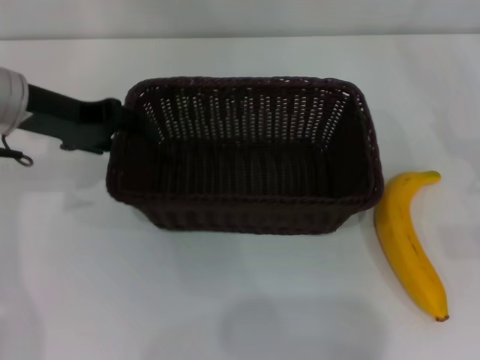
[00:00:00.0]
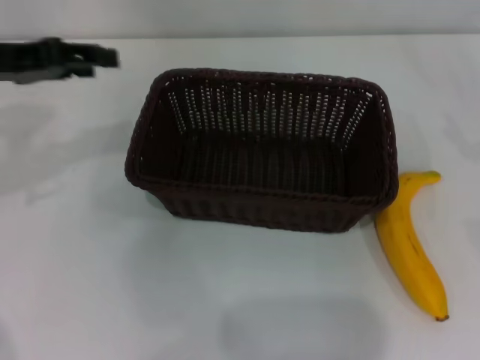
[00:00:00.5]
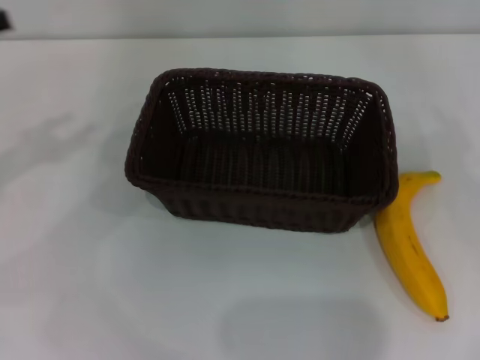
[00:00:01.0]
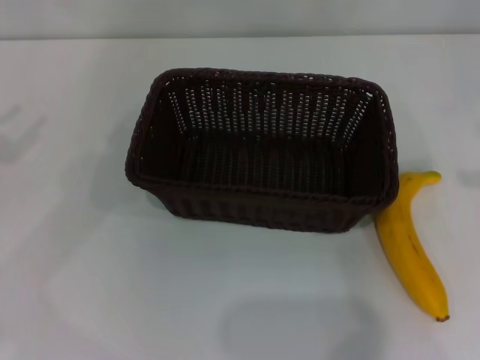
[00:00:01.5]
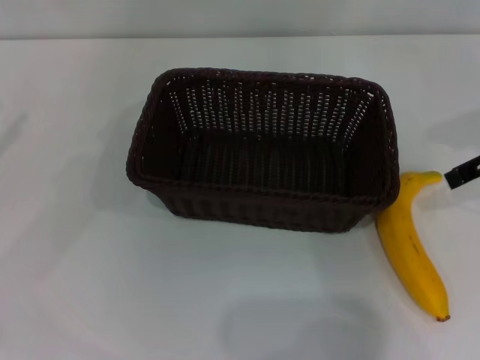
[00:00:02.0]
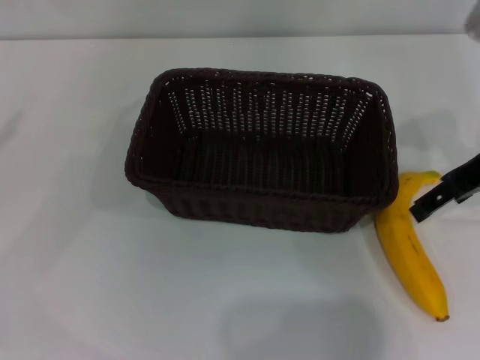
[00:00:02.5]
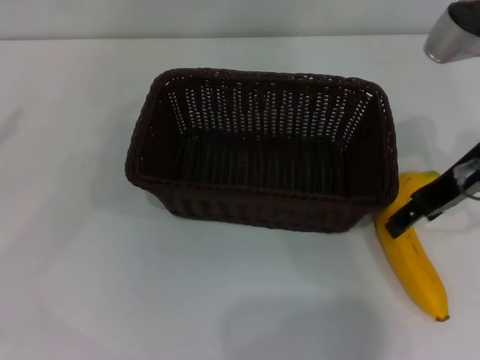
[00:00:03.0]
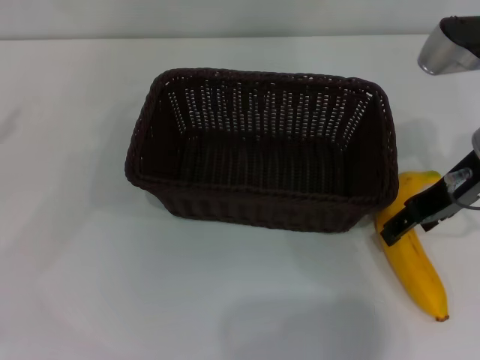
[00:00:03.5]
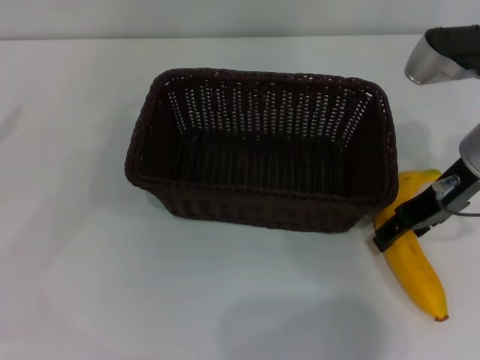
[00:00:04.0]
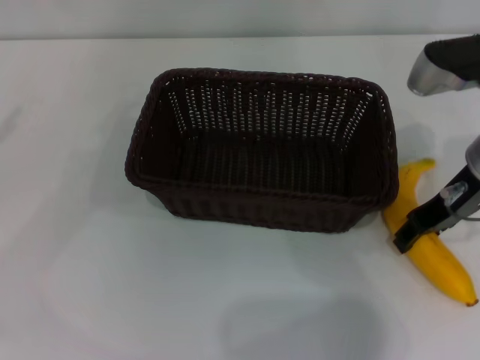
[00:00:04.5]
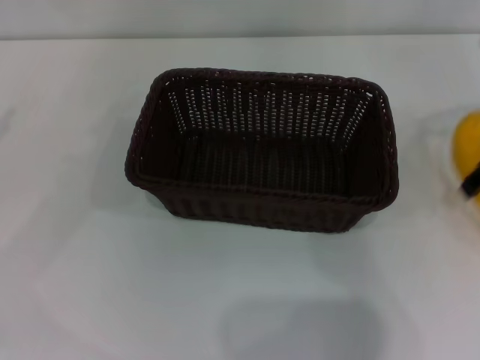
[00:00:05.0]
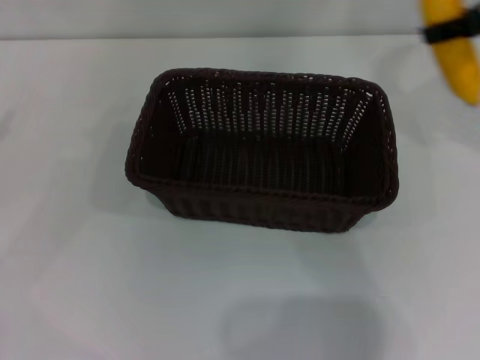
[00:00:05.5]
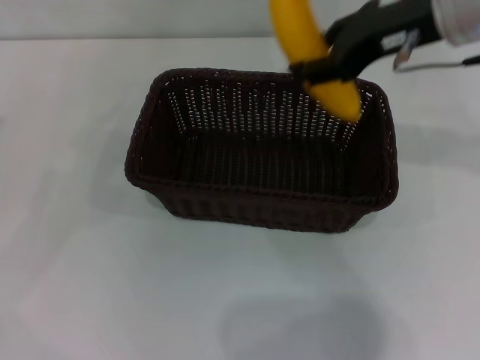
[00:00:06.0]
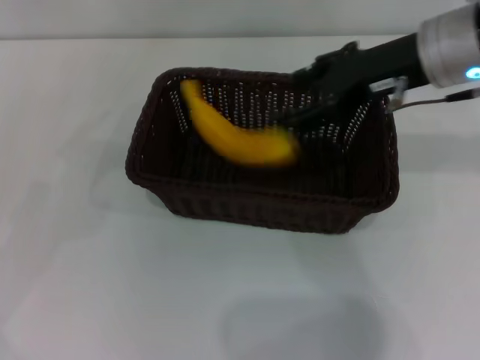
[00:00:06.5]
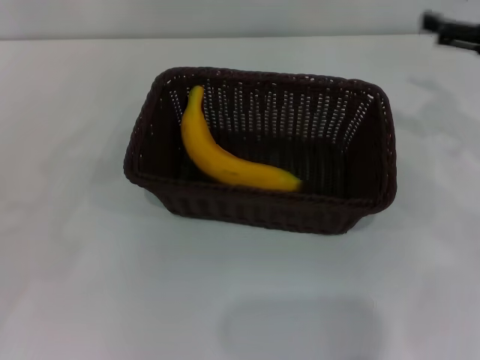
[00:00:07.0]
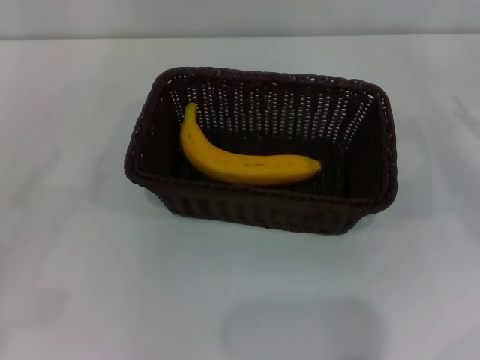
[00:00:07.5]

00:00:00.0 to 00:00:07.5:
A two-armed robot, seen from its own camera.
Step, 00:00:00.5 to 00:00:04.5: Pick up the banana with the right gripper.
Step, 00:00:05.0 to 00:00:06.0: Place the banana into the dark basket with the right gripper.
00:00:00.0 to 00:00:02.0: The left gripper is displaced to the left and backward by roughly 20 cm; the right gripper is displaced upward and to the left by some 20 cm.
00:00:02.0 to 00:00:04.0: The right gripper shifts roughly 10 cm to the left and downward.
00:00:04.0 to 00:00:05.5: The right gripper heads upward and to the right, covering about 15 cm, and closes its fingers.
00:00:05.5 to 00:00:07.5: The left gripper heads downward and backward, covering some 15 cm; the right gripper is displaced downward and to the right by roughly 25 cm, and opens up.
